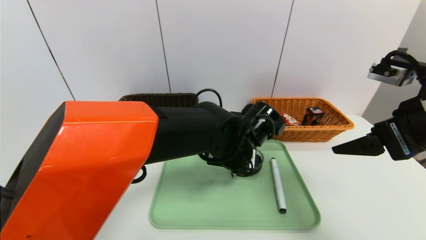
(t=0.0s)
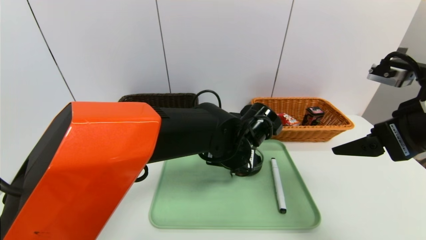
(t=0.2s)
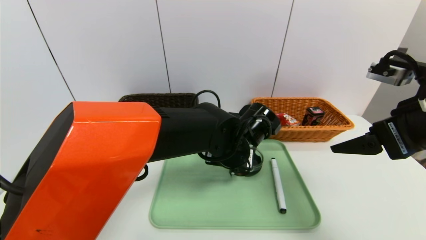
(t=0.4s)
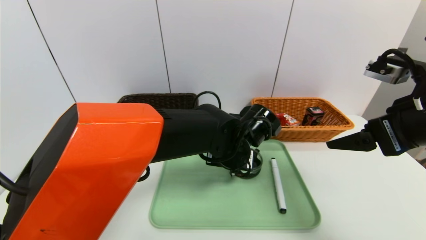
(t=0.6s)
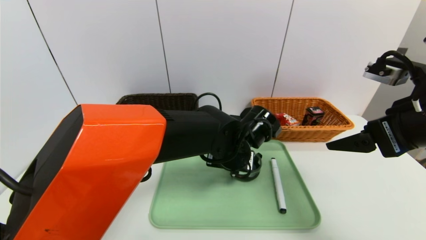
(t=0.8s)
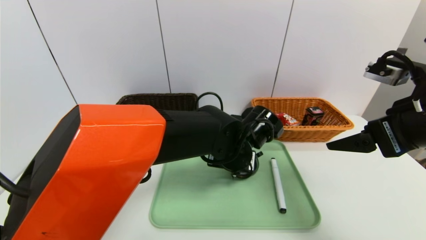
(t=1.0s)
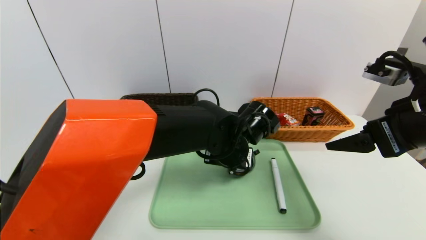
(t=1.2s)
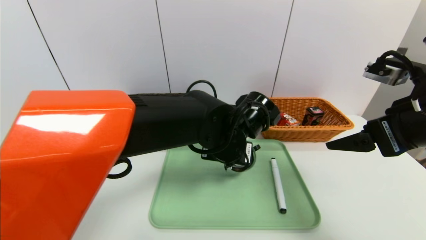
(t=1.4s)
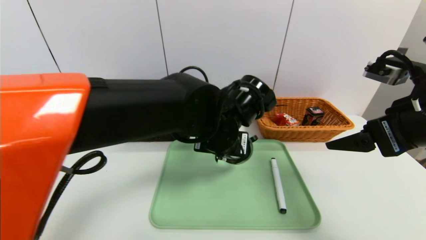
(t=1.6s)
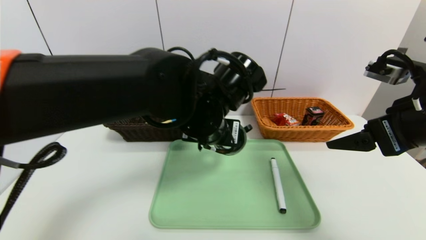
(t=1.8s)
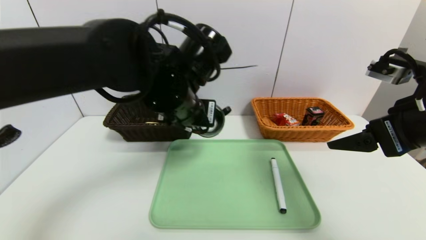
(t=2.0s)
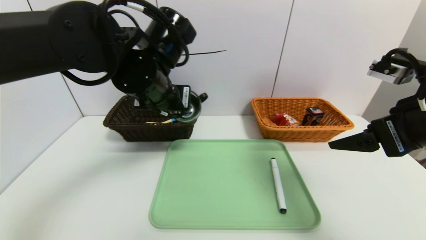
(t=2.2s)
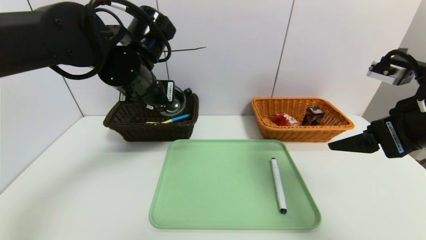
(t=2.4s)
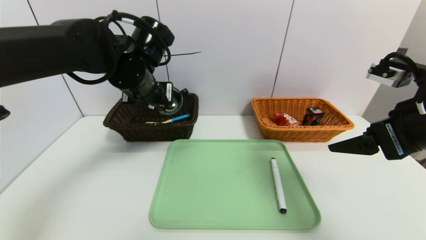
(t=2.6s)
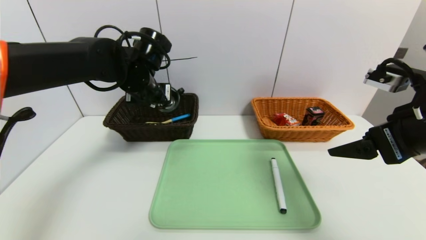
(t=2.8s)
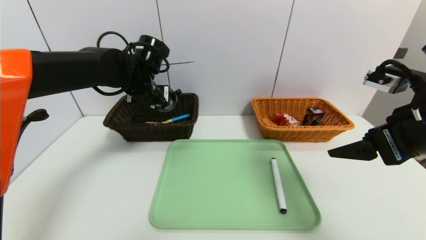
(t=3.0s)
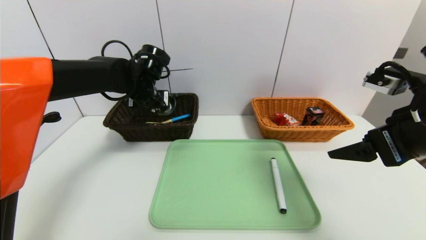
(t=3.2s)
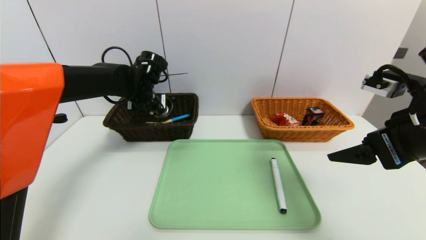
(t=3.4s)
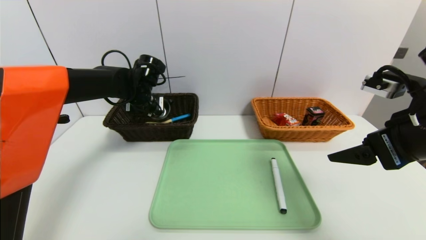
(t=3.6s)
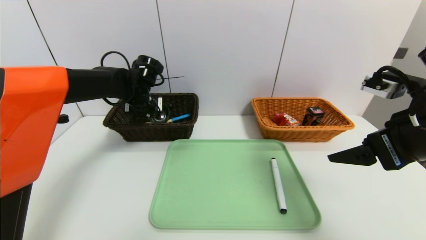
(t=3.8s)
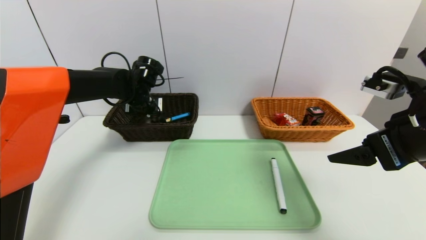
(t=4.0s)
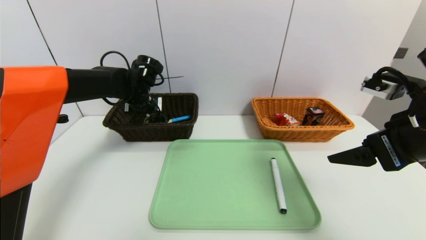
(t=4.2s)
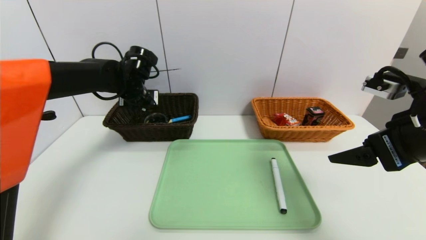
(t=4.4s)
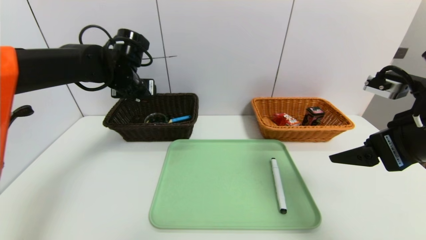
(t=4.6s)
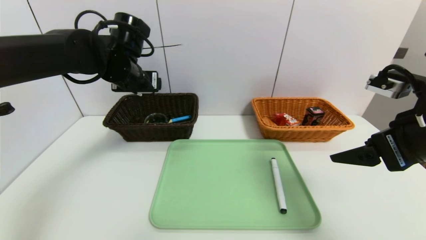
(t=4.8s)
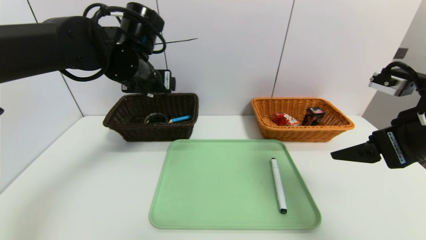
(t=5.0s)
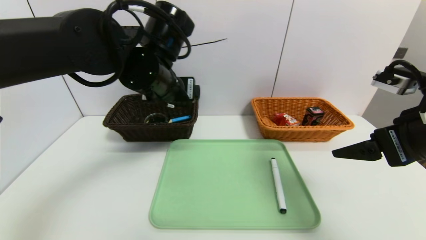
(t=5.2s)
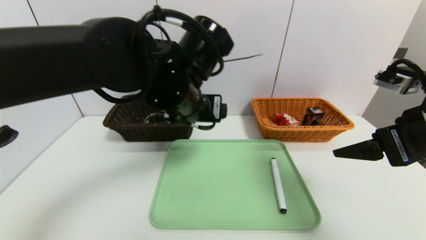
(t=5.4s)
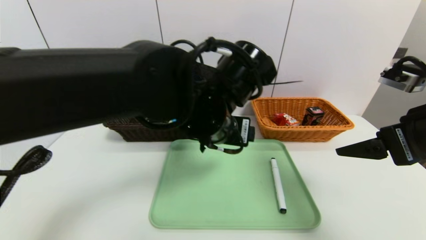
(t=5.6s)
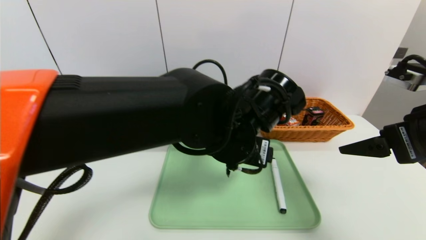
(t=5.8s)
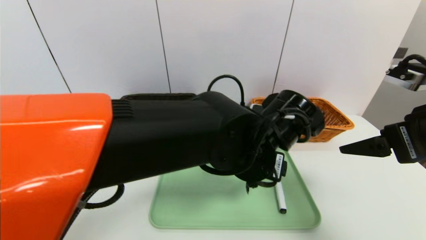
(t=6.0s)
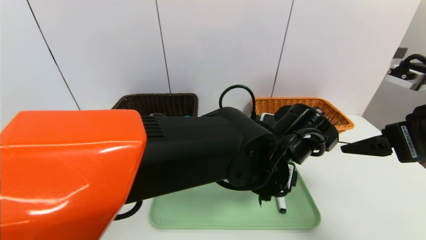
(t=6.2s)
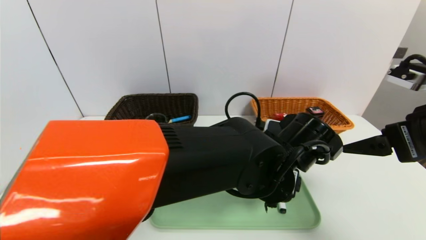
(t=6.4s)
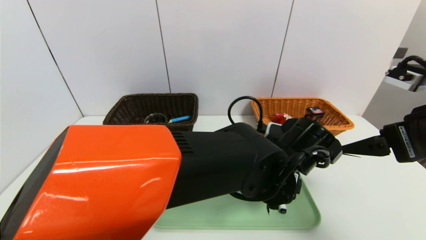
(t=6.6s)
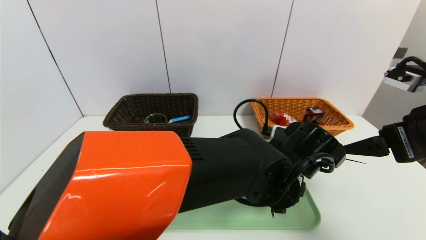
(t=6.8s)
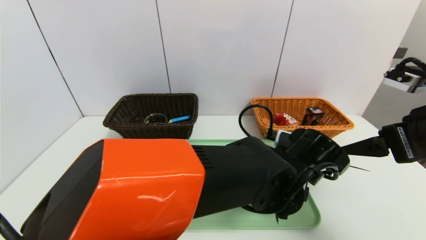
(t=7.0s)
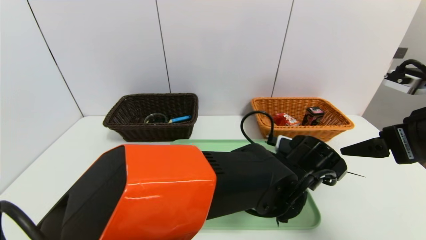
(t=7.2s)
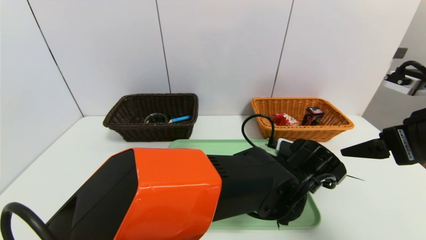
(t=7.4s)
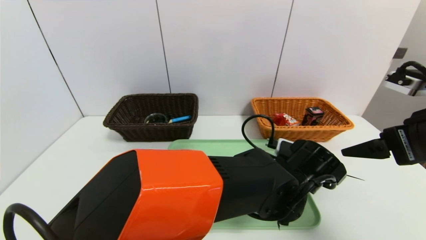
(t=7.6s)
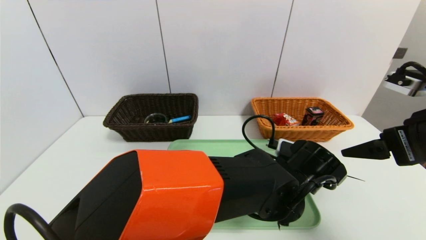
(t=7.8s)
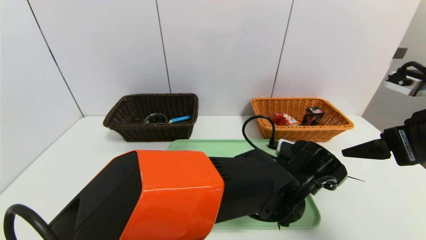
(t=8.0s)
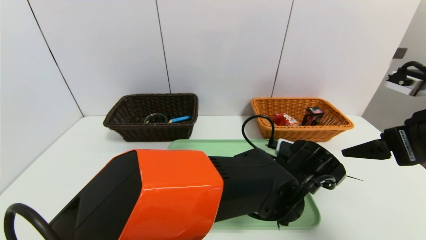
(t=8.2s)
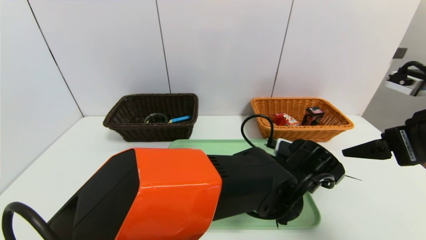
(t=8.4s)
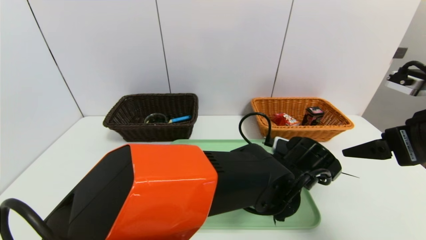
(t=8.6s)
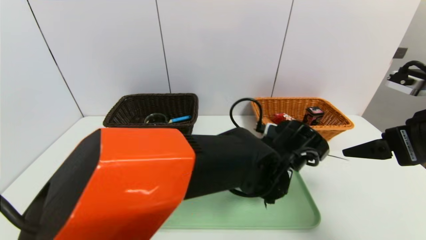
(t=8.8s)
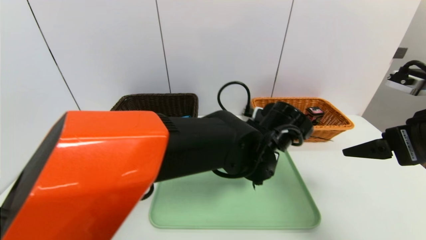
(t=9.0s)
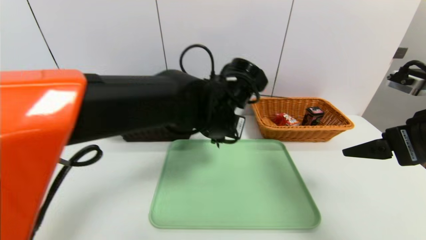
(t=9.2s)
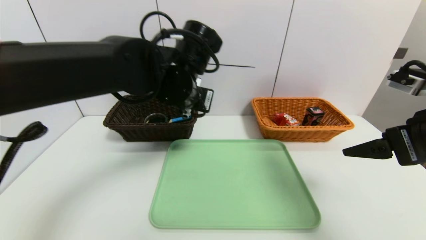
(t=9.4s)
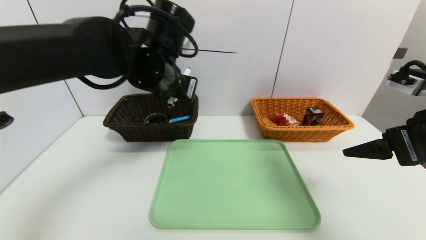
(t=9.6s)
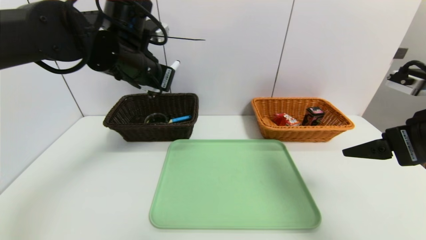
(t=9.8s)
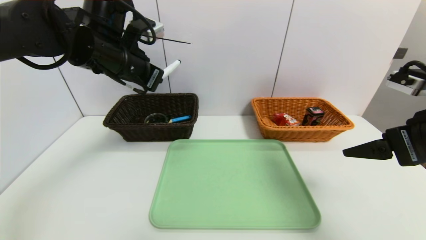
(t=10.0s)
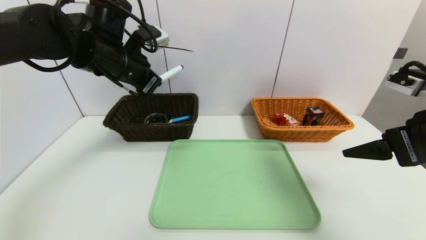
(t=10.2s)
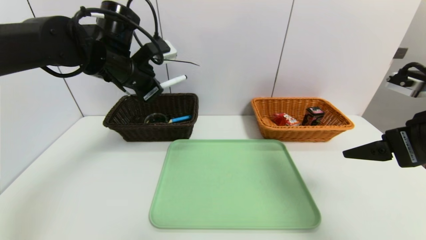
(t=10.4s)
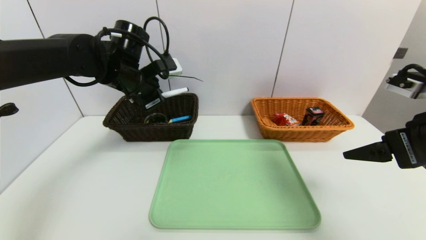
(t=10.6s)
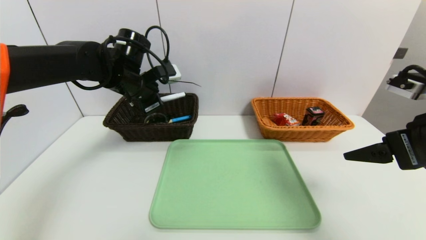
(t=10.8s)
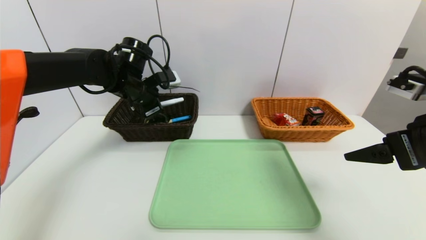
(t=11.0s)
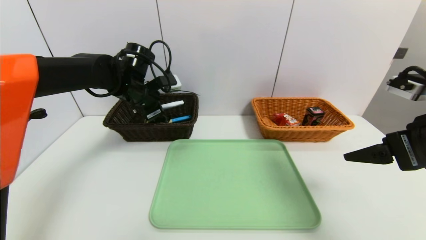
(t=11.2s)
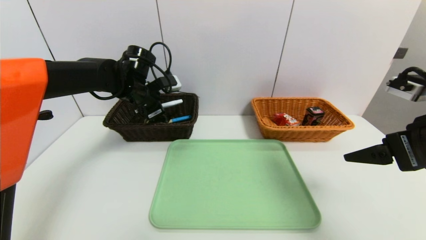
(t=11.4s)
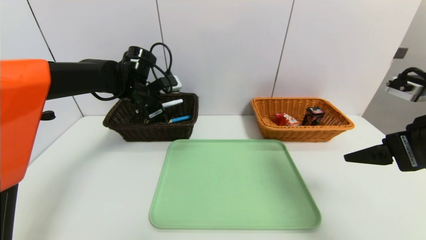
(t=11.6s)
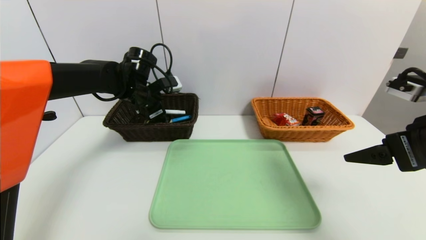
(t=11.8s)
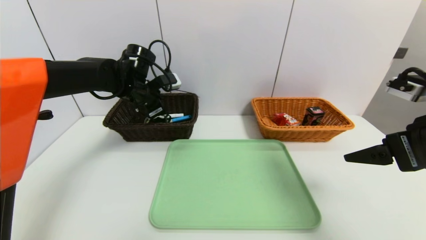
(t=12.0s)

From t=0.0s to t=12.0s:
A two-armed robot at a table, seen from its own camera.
Task of the whole recording: place the food in the right basket with the right gripper, and place the non food items in the left basket with the left gripper.
Step, from t=0.0s to t=4.2s: Grasp the black glass cup and put it in the left basket.
Step, from t=4.4s to t=12.0s: Grasp the black marker and put it in the left basket.
From t=0.0s to t=1.6s: The left gripper travels upward by about 5 cm, and closes up.
From t=1.6s to t=3.0s: The left gripper goes about 20 cm to the left and forward.
From t=3.0s to t=4.4s: The left gripper moves roughly 5 cm, and opens its fingers.
From t=4.4s to t=6.0s: The left gripper travels to the right and backward by approximately 30 cm.
From t=6.0s to t=7.6s: The left gripper heads downward and to the right, covering about 10 cm.
From t=7.6s to t=9.0s: The left gripper moves upward and to the left, some 10 cm, and closes.
From t=9.0s to t=10.4s: The left gripper moves to the left, upward and forward, roughly 30 cm.
From t=10.4s to t=12.0s: The left gripper travels downward and forward by about 10 cm, and opens its fingers.

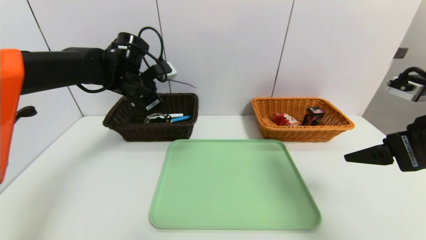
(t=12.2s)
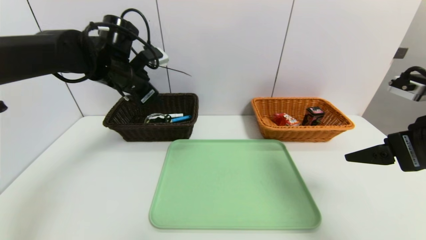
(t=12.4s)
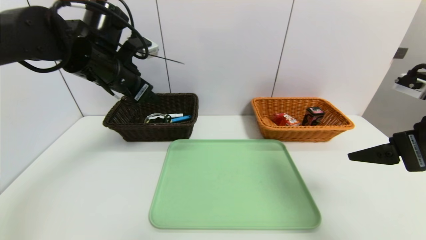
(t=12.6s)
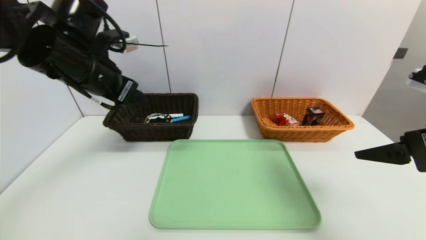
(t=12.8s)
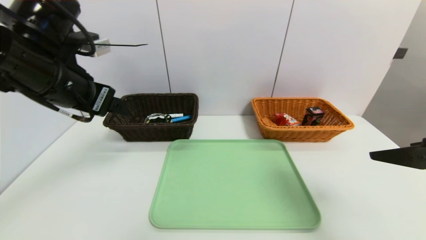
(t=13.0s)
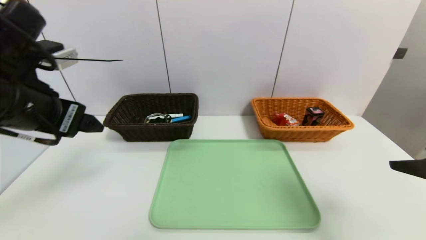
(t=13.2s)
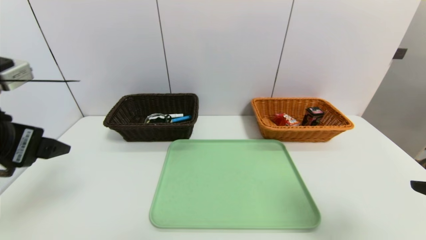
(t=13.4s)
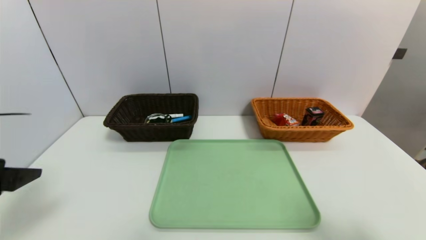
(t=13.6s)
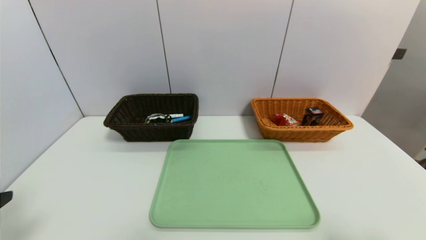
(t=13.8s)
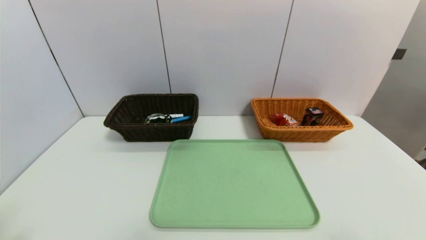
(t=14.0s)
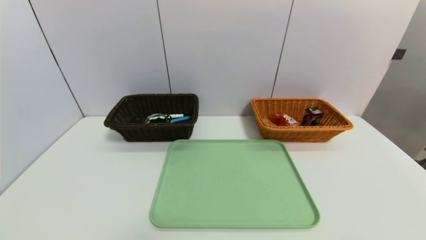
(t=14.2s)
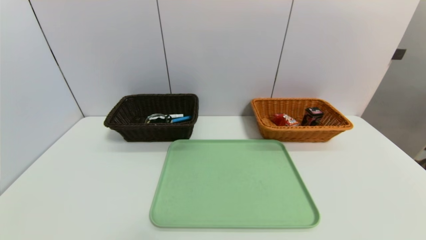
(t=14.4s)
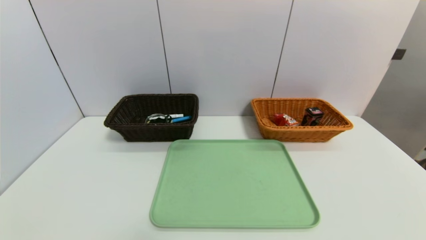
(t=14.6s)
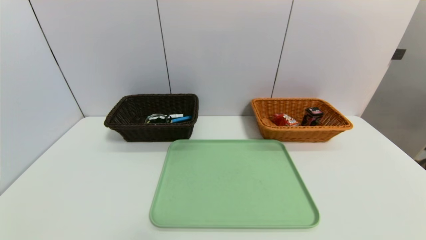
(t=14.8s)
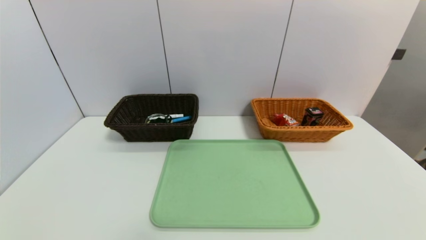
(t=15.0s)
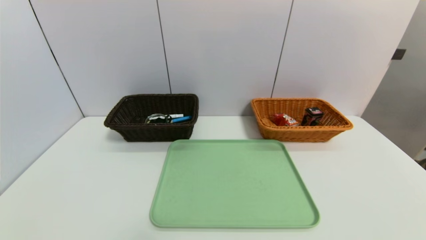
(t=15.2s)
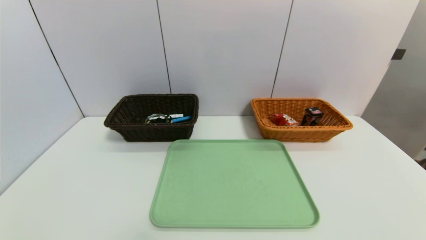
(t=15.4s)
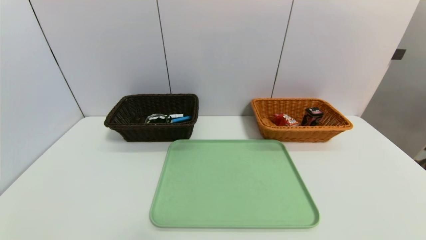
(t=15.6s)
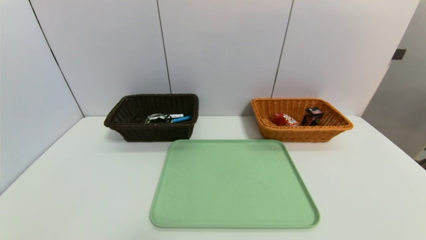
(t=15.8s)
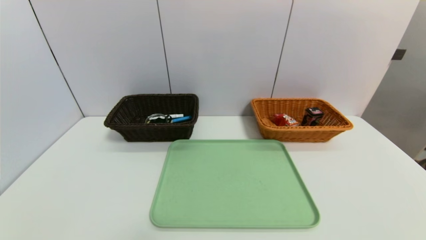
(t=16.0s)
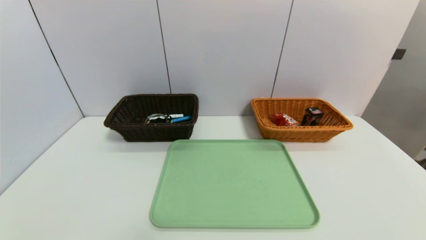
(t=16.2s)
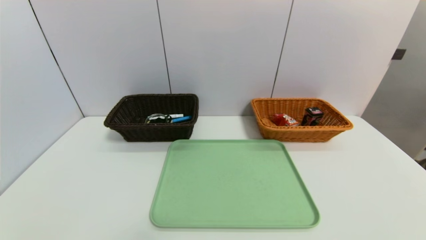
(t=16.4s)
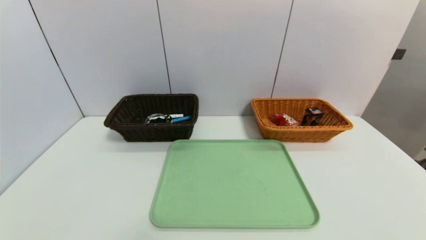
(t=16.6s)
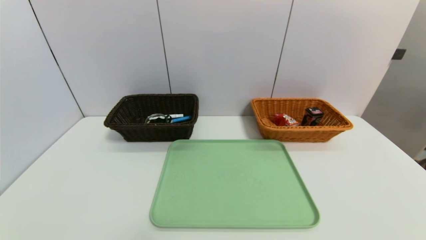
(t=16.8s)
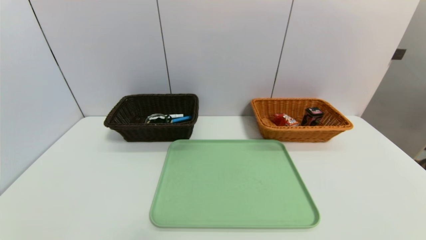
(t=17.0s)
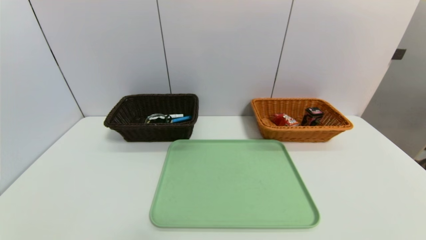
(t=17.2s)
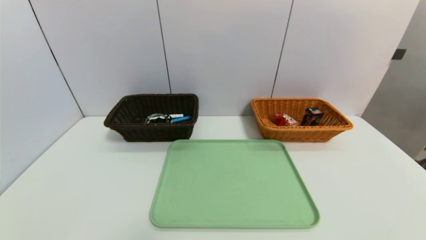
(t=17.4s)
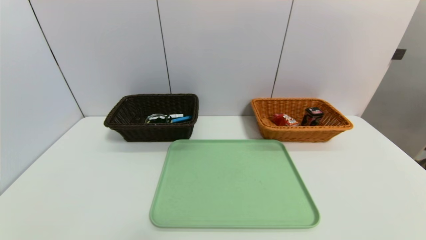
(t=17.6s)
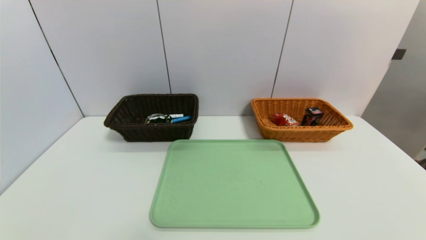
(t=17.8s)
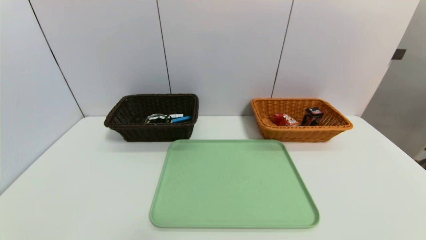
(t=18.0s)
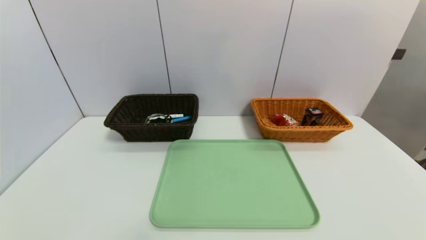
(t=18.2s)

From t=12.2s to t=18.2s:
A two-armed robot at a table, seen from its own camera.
Task of the whole recording: place the food in the right basket with the right gripper, and place the non food items in the left basket with the left gripper.
From t=12.2s to t=13.8s: The left gripper travels backward by roughly 35 cm, while the right gripper moves backward, approximately 15 cm.
From t=13.8s to t=15.2s: The left gripper travels downward and backward by approximately 20 cm.
